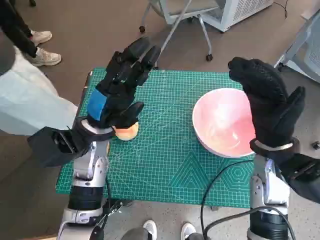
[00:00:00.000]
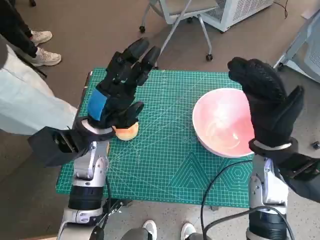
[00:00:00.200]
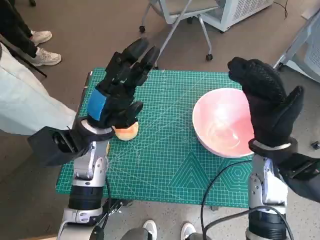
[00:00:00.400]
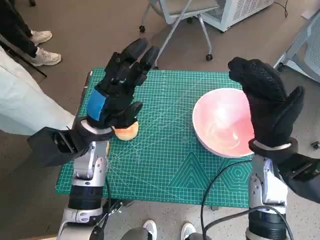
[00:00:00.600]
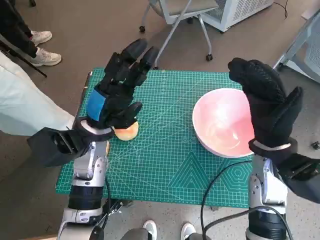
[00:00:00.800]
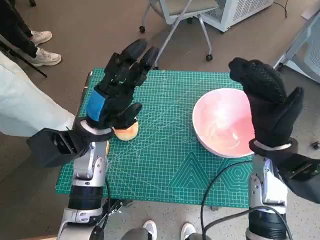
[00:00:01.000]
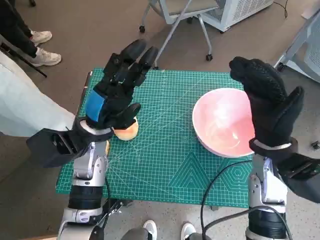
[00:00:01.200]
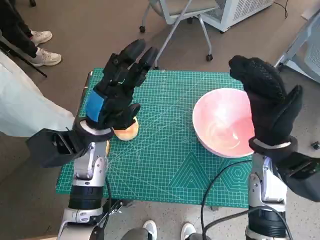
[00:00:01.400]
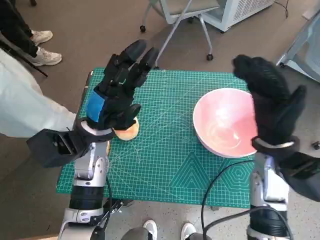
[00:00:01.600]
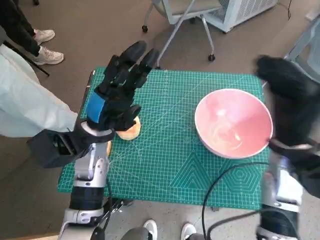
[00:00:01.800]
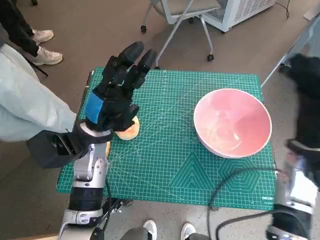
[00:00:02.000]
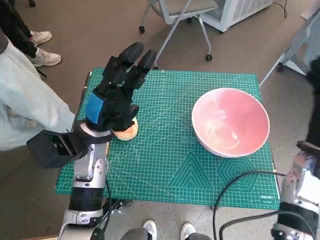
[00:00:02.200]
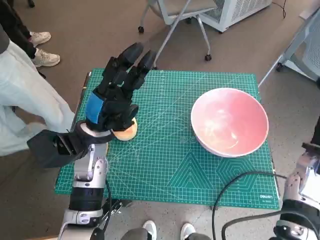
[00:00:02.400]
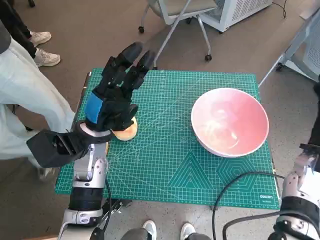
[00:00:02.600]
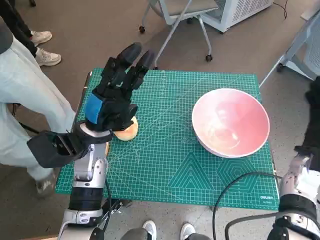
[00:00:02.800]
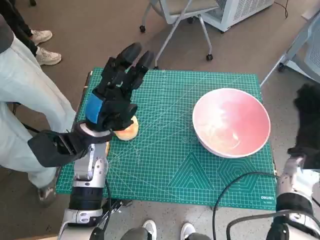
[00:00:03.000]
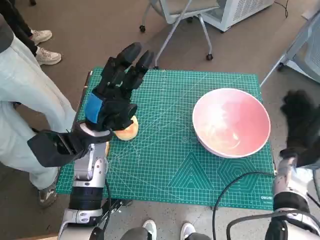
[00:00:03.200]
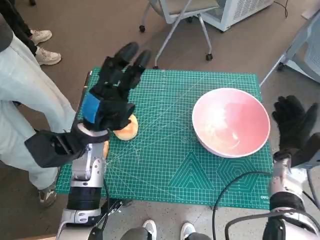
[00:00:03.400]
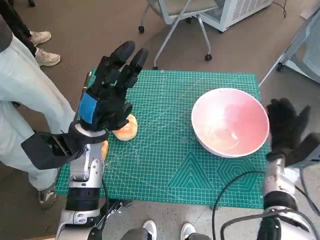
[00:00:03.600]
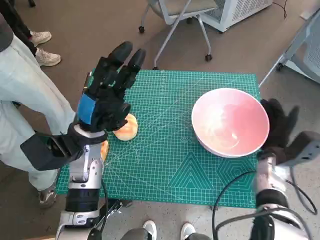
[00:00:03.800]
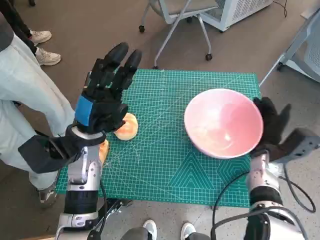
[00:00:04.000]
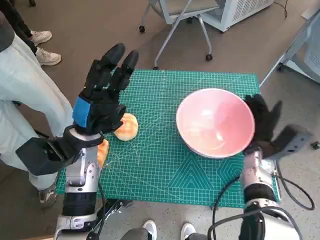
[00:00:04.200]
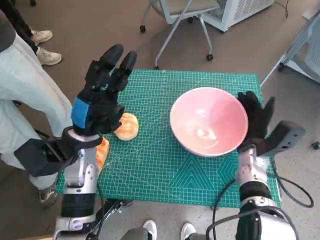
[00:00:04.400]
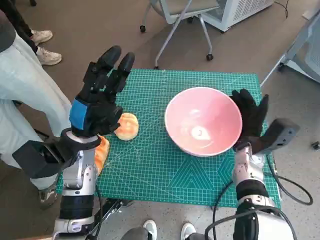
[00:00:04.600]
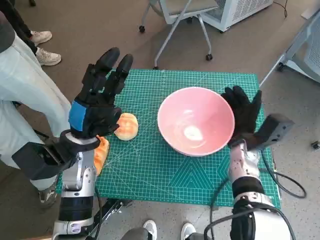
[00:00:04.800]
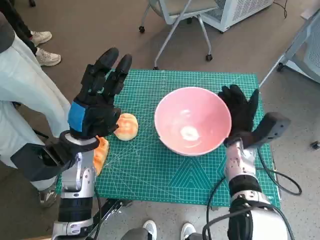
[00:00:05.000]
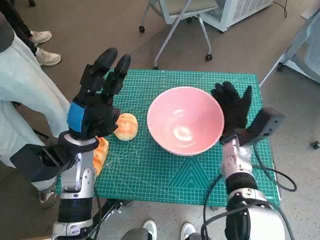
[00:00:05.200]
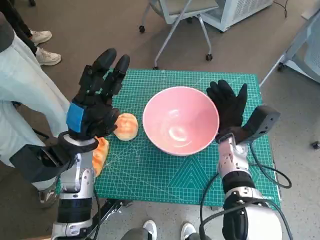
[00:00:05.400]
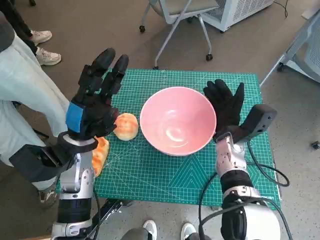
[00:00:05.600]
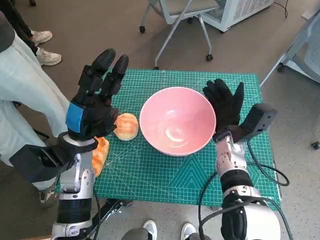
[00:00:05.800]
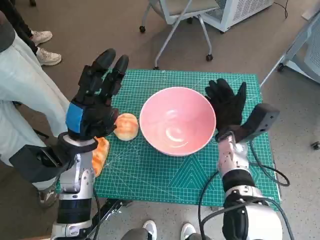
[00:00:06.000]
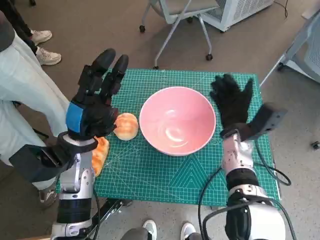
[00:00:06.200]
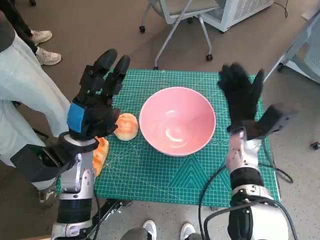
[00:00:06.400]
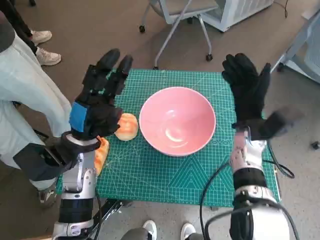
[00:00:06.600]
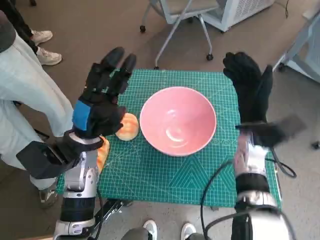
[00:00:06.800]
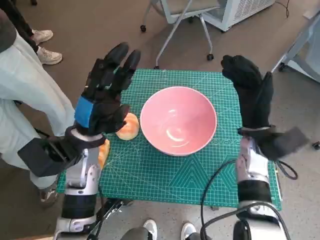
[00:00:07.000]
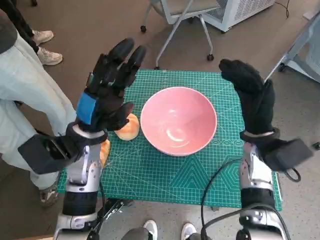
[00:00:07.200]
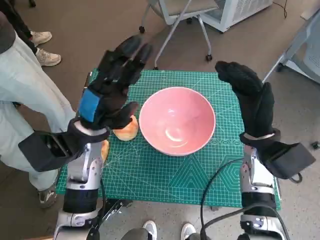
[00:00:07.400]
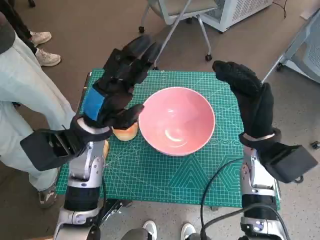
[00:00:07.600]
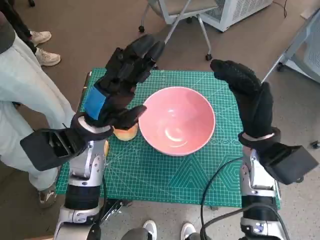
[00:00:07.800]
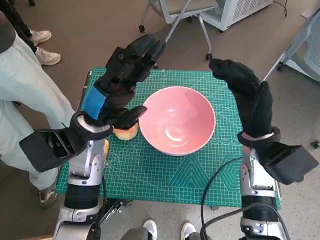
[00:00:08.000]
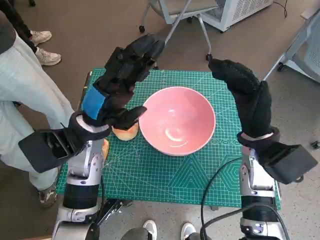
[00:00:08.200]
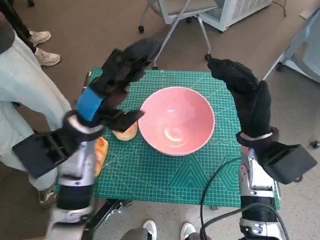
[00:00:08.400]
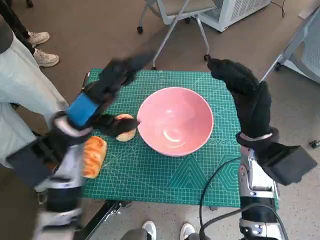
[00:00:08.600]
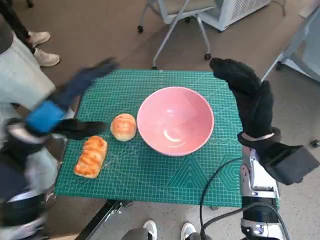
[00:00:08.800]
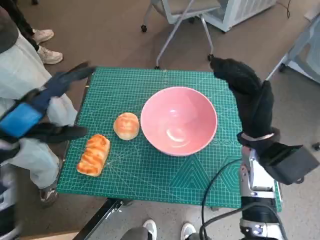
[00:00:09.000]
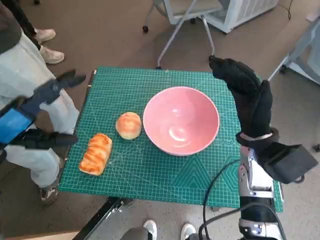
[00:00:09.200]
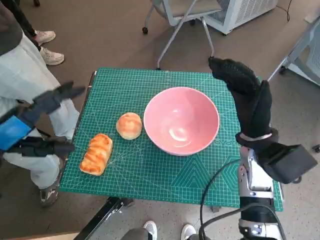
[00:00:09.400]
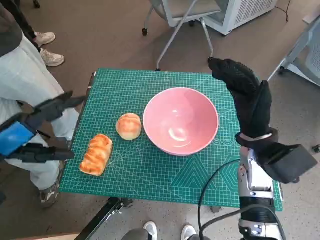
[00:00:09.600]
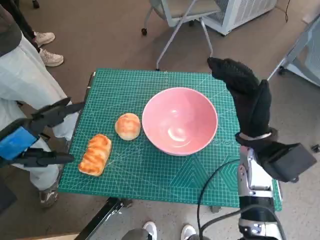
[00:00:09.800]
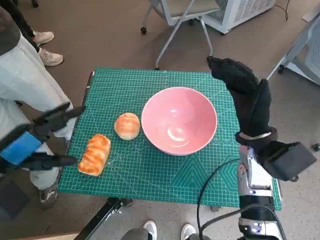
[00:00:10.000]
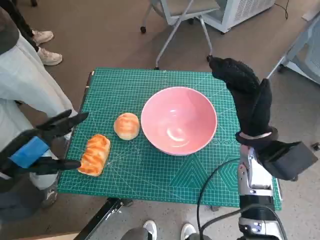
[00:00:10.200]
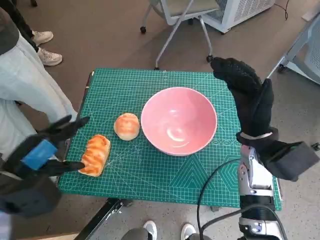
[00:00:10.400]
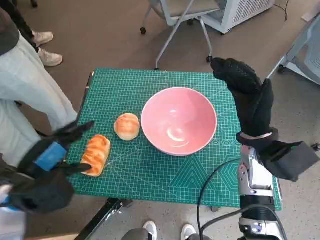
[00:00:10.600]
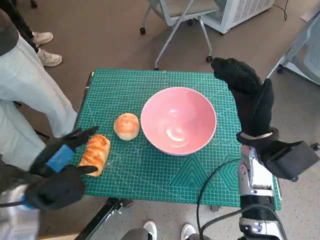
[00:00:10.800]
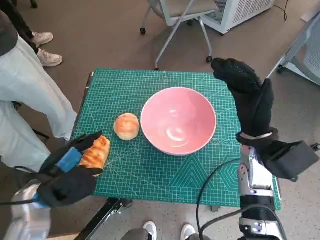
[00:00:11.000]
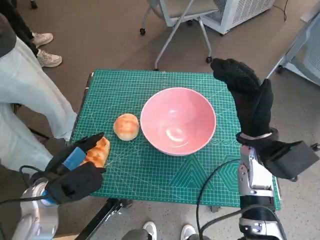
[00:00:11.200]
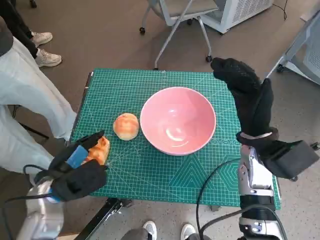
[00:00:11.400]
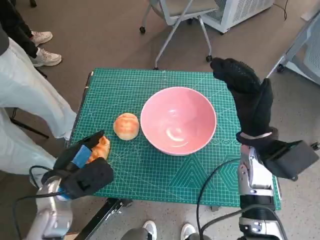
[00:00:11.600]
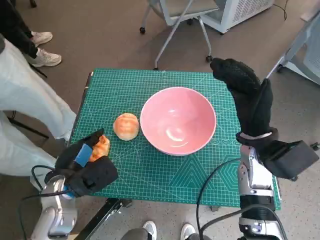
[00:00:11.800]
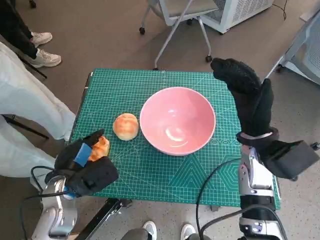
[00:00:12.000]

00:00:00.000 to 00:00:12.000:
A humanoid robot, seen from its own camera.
Task of the whole recording: Push the bowl into the center of the table and put the bread into the bowl.
Step, 00:00:00.000 to 00:00:06.400: Move the pink bowl to the center of table with right hand.
00:00:01.600 to 00:00:03.000: The right hand shifts about 15 cm to the right and downward.
00:00:03.000 to 00:00:04.400: The right hand heads to the left, covering roughly 10 cm.
00:00:04.400 to 00:00:06.000: The right hand heads to the left, covering about 5 cm.
00:00:06.000 to 00:00:07.600: The right hand travels upward by some 5 cm.
00:00:07.600 to 00:00:09.000: The left hand travels to the left and backward by approximately 10 cm.
00:00:09.000 to 00:00:10.400: The left hand shifts about 5 cm backward.
00:00:10.400 to 00:00:12.000: The left hand shifts some 10 cm downward and to the right.

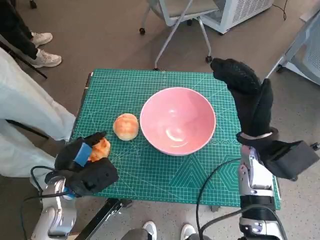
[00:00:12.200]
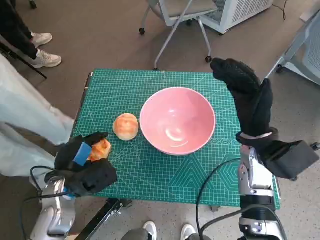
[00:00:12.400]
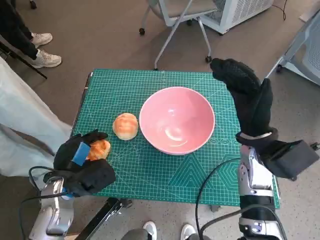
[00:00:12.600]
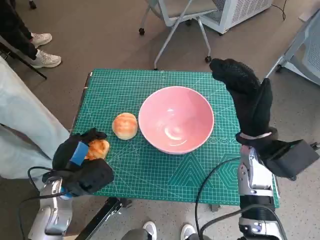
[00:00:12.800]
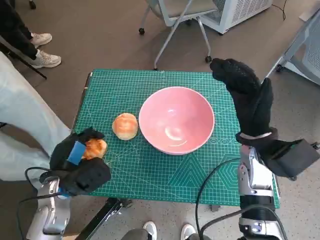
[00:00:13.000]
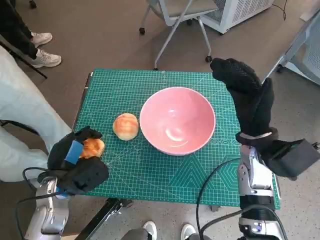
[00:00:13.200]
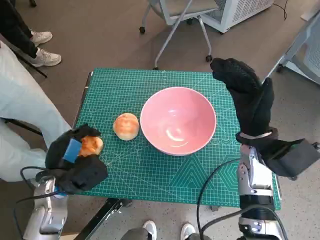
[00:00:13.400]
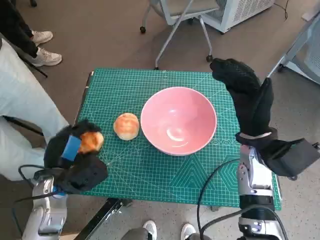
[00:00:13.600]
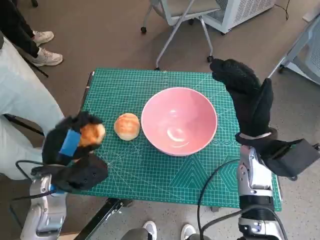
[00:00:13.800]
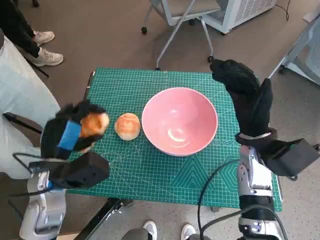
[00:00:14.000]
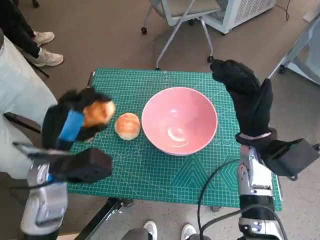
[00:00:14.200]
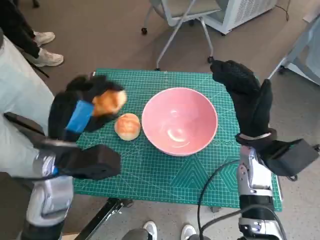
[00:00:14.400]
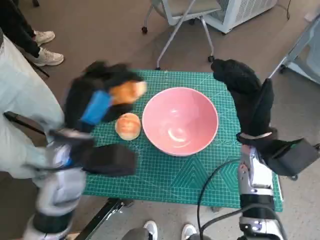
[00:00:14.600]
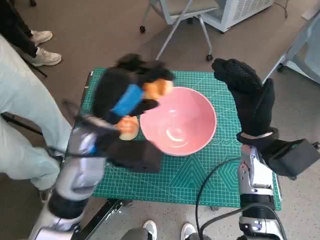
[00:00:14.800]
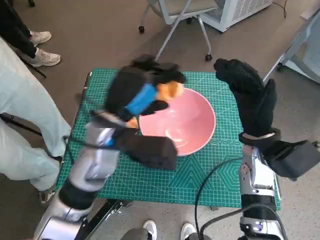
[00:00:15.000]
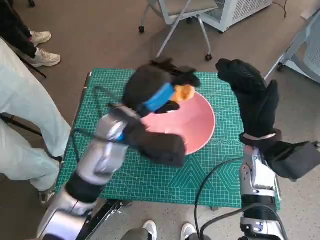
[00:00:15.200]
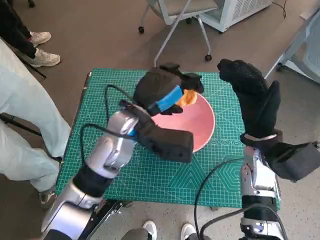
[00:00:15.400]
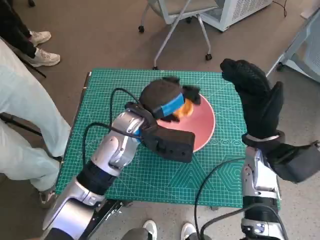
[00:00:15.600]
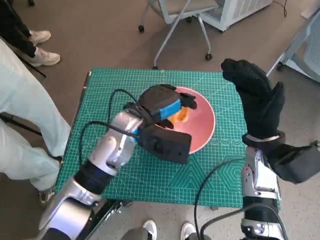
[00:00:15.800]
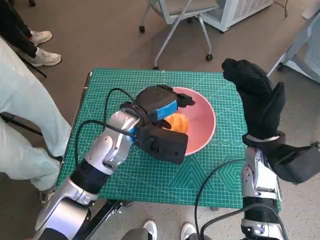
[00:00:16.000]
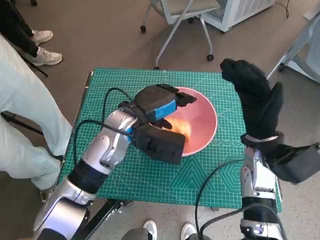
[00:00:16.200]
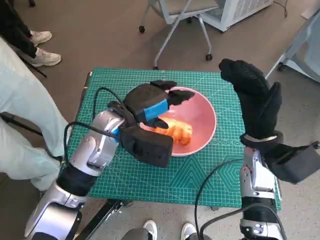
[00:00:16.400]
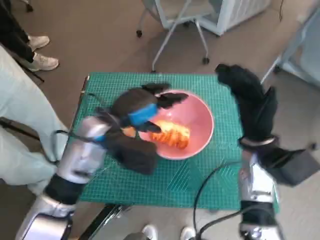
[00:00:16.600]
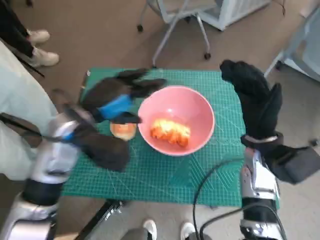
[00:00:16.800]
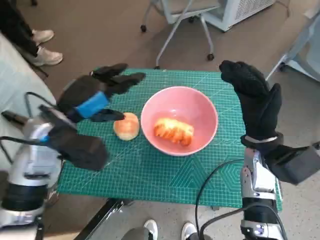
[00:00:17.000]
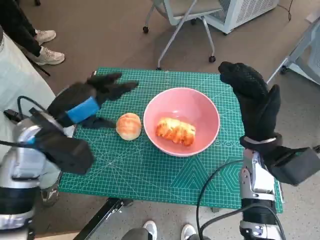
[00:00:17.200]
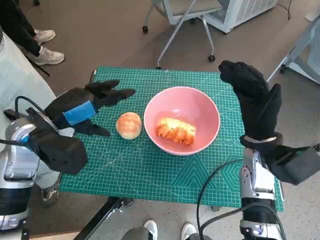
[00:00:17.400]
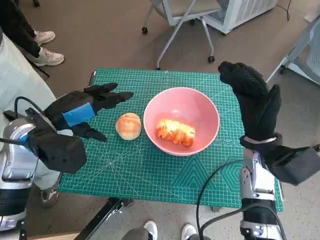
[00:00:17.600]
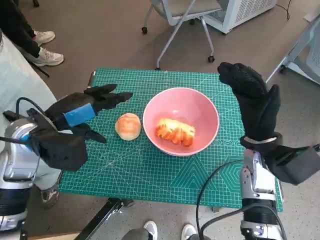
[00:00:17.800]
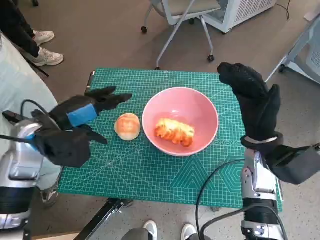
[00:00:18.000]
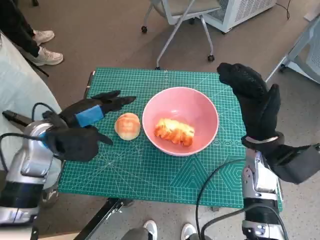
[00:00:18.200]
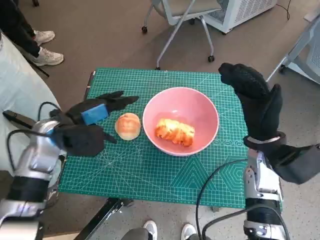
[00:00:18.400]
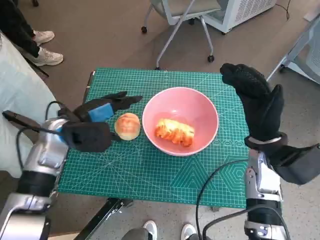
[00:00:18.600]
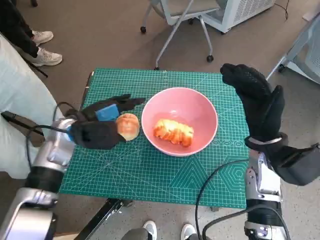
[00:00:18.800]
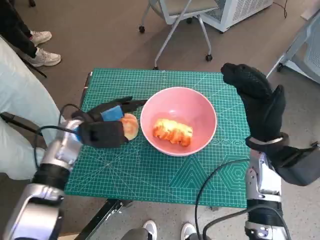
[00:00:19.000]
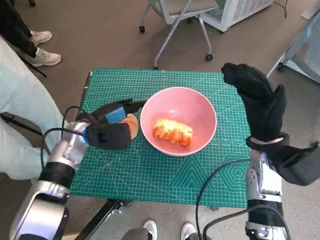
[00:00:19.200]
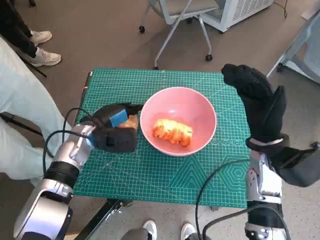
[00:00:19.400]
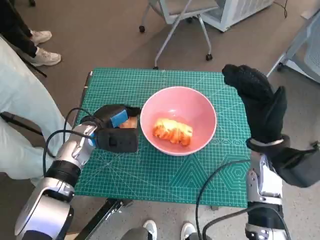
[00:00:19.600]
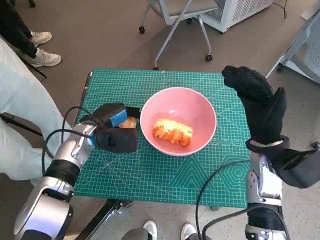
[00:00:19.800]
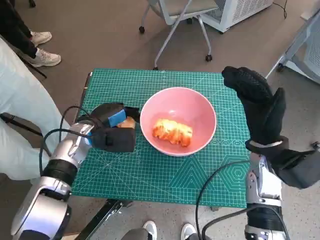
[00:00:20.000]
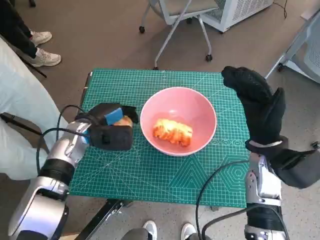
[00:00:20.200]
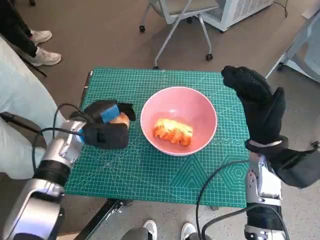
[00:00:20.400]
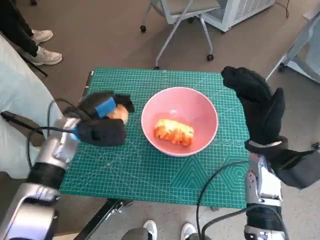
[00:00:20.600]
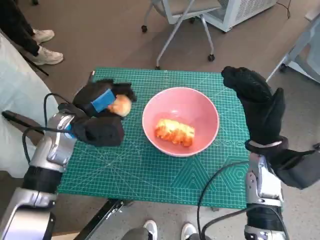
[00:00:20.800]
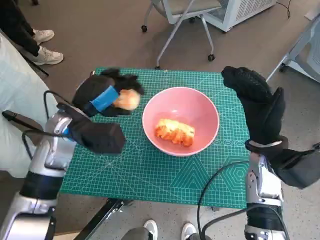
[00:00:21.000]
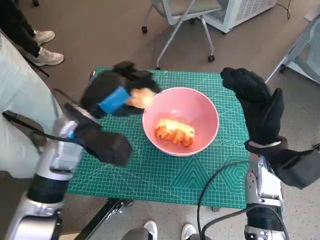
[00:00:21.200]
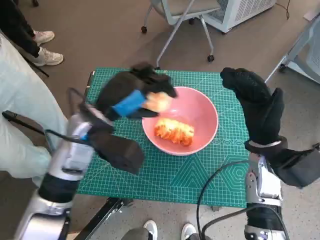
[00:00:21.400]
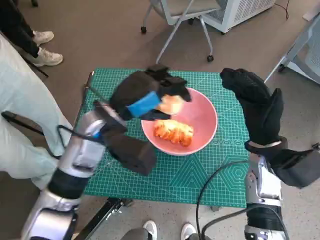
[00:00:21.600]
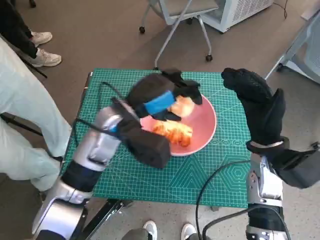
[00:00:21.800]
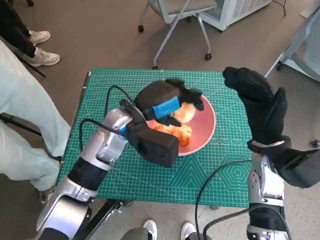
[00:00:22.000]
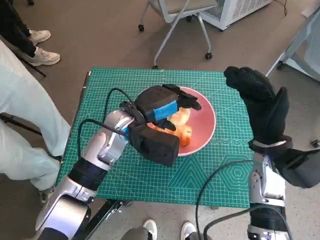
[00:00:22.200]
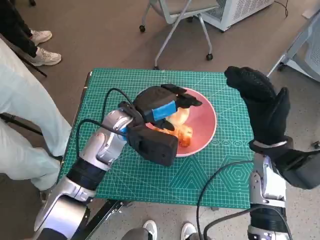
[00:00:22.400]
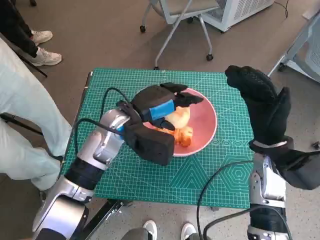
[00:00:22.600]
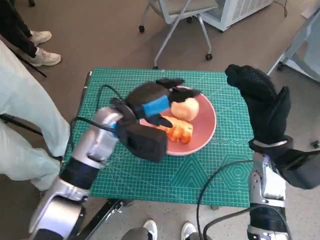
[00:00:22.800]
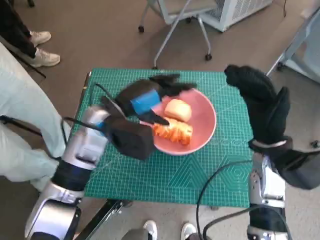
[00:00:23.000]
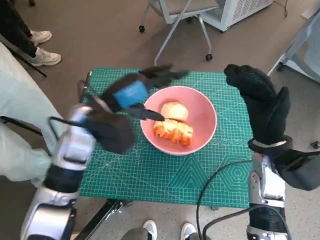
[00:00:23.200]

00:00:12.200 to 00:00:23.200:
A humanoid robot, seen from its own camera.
Task of the whole recording: Push the bowl into the center of the table and put the bread into the bowl.
Step, 00:00:12.800 to 00:00:16.600: Place the long bread in pink bowl with left hand.
Step, 00:00:16.800 to 00:00:20.200: Grasp the round bread with left hand.
00:00:12.200 to 00:00:13.800: The hands move only a little.
00:00:13.800 to 00:00:15.400: The left hand moves to the right, forward and upward, roughly 20 cm.
00:00:15.400 to 00:00:17.000: The left hand is displaced to the left by approximately 15 cm.
00:00:17.000 to 00:00:18.400: The left hand shifts by about 5 cm.
00:00:18.400 to 00:00:20.000: The left hand moves downward, some 5 cm.
00:00:20.000 to 00:00:21.600: The left hand moves upward and to the right, roughly 15 cm.
